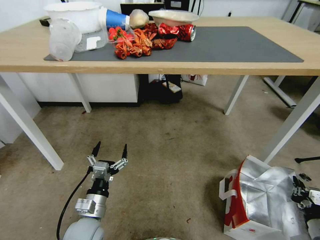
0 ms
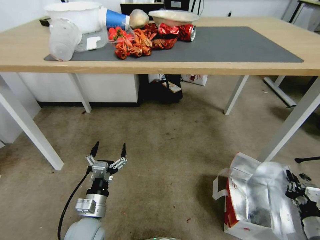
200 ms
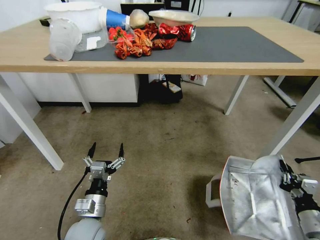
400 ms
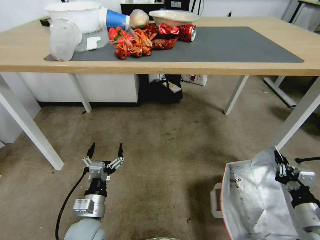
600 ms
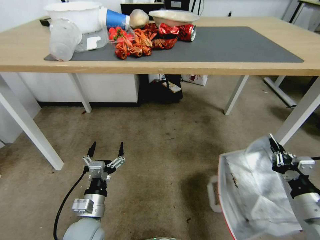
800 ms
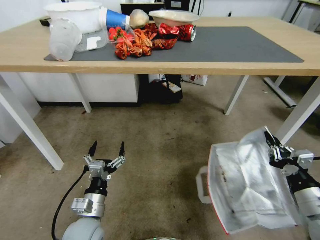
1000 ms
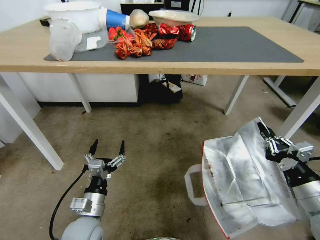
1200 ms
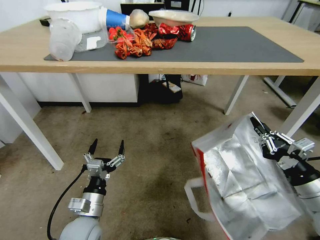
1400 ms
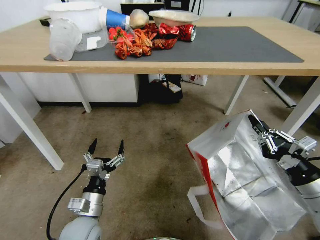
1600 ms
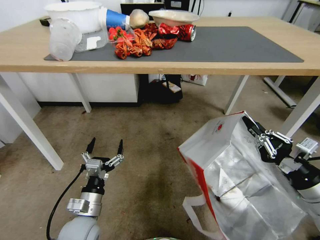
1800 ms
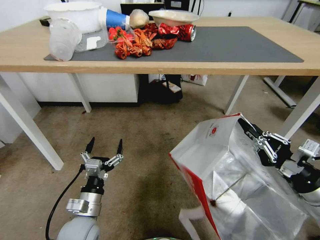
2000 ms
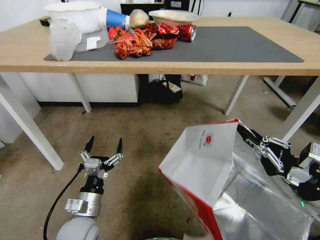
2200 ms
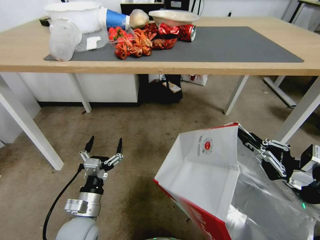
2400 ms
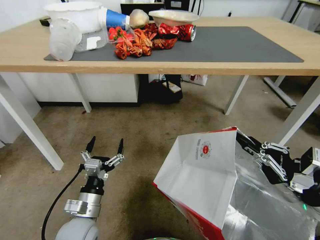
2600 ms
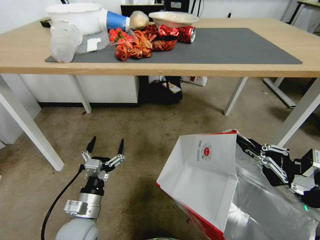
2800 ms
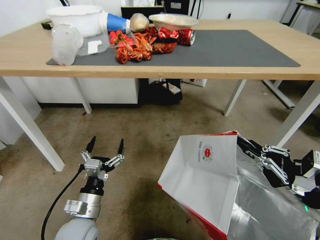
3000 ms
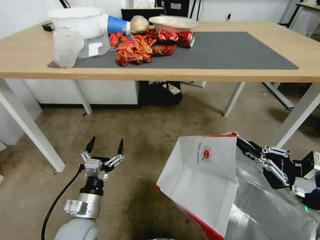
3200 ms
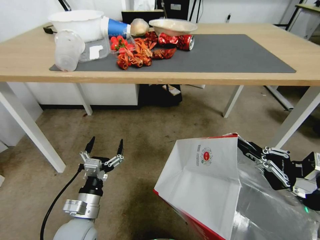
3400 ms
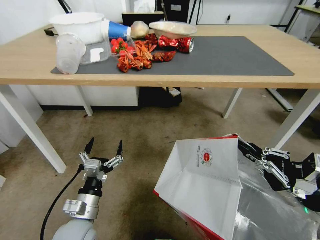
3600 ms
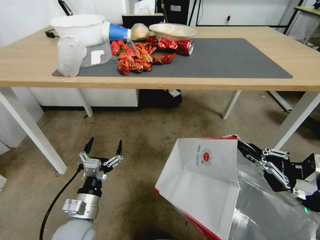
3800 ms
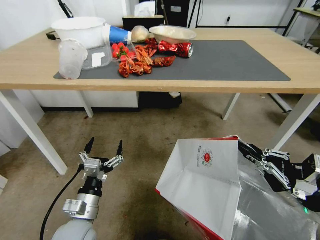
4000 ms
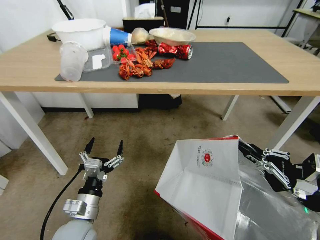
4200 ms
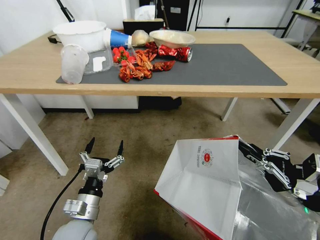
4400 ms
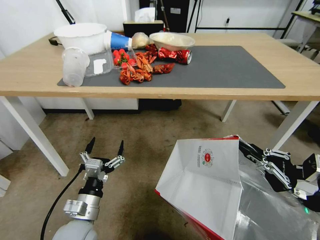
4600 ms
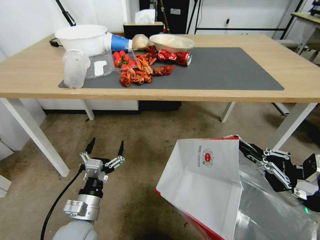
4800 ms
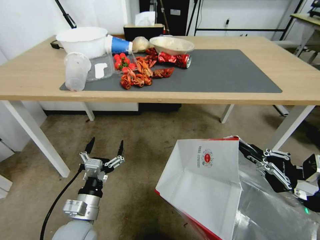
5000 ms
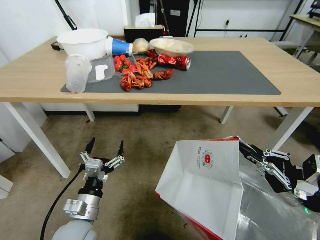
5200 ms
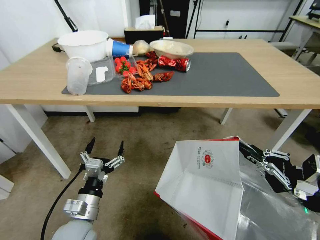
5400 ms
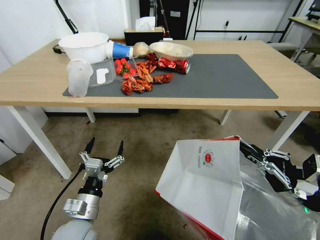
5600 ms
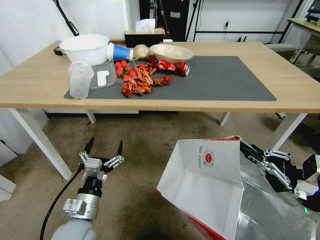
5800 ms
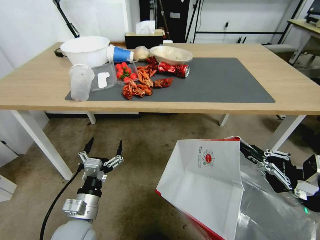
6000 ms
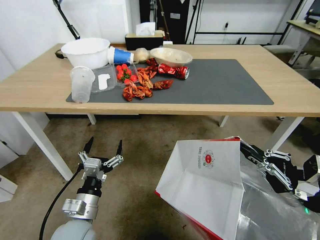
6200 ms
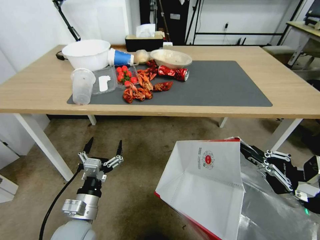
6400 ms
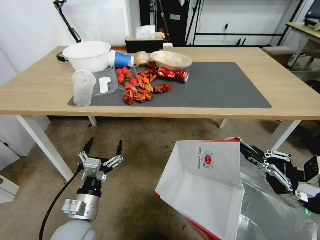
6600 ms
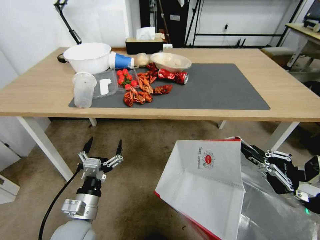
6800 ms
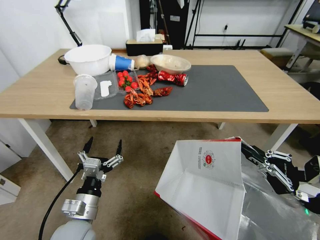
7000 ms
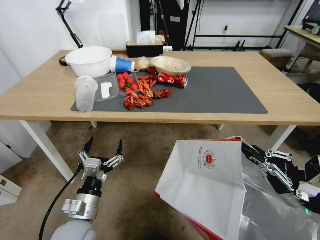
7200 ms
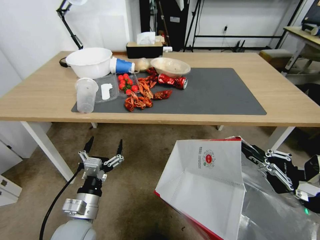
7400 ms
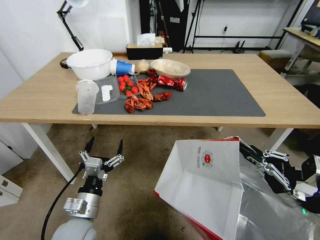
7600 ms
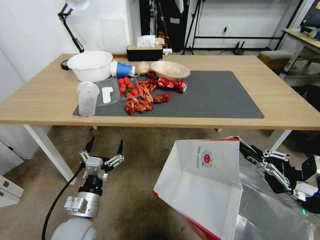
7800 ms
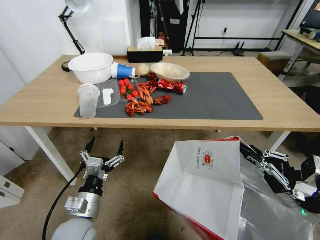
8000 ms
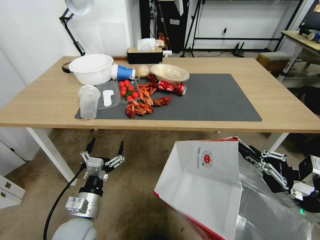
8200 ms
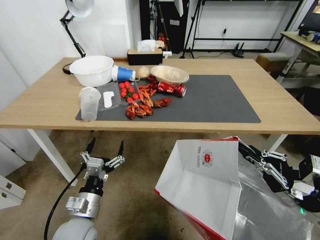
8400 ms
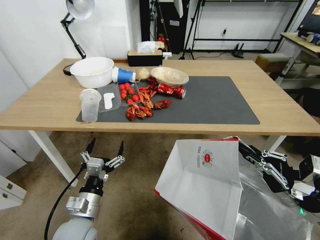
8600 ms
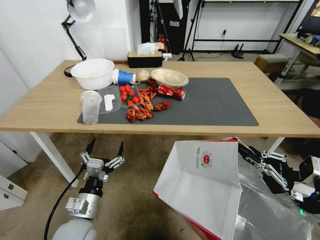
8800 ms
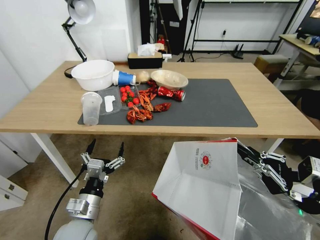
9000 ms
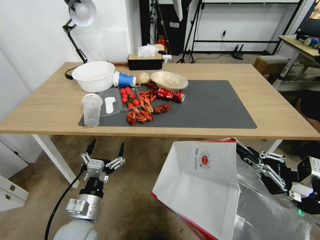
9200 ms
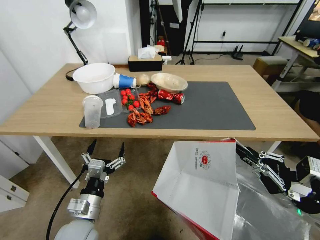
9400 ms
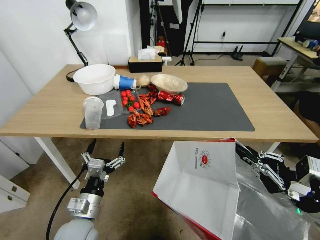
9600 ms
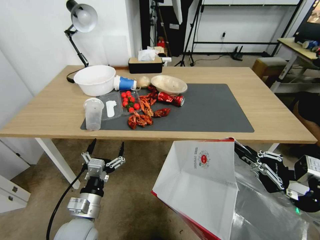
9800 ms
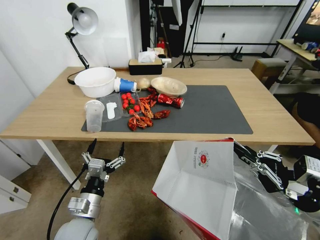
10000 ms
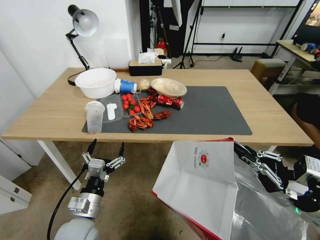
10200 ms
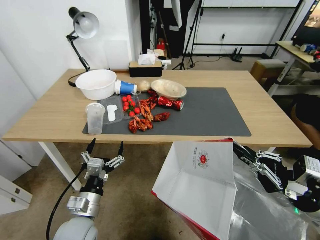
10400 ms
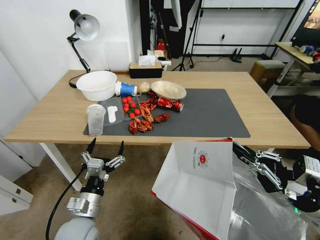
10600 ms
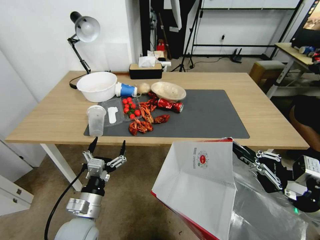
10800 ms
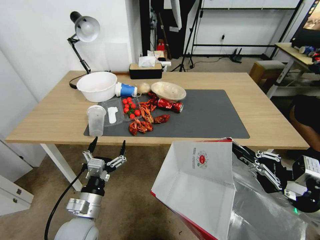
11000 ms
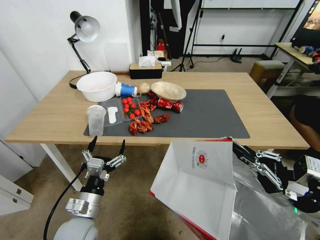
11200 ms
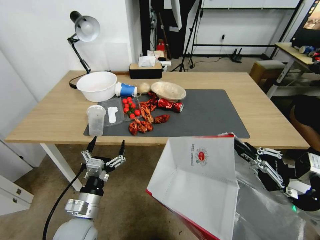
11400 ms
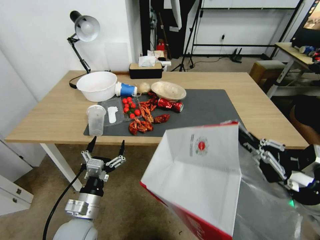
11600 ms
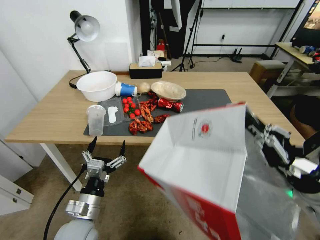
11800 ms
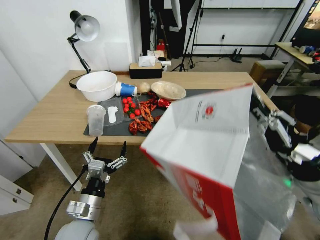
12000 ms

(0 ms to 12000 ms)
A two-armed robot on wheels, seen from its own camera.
Task of the whole recording: Pick up the food delivery bag from the floor and place it on the table.
0 ms - 1600 ms: The right gripper shifts some 25 cm upward and to the left.
10400 ms - 12000 ms: The right gripper is displaced upward by some 5 cm.

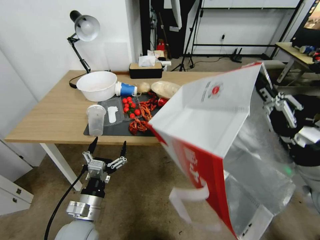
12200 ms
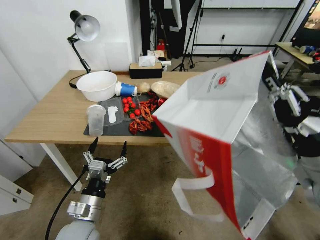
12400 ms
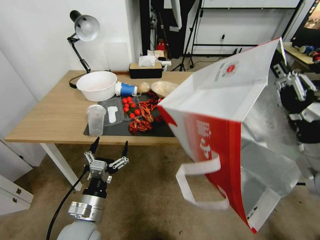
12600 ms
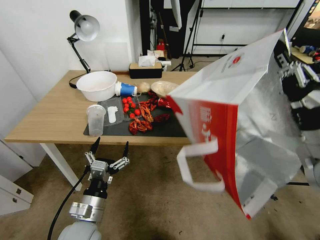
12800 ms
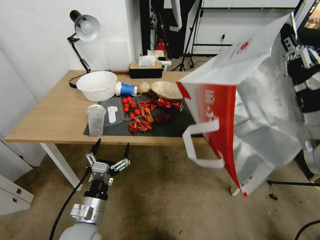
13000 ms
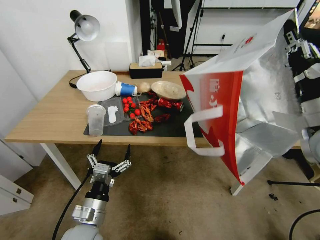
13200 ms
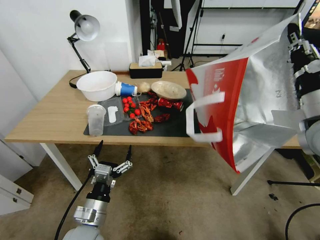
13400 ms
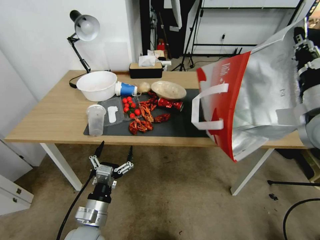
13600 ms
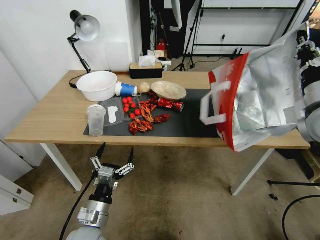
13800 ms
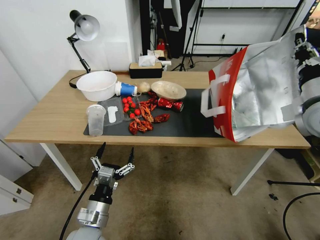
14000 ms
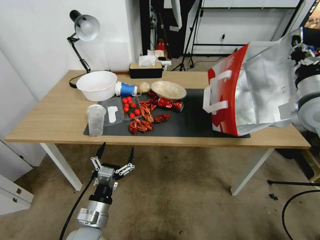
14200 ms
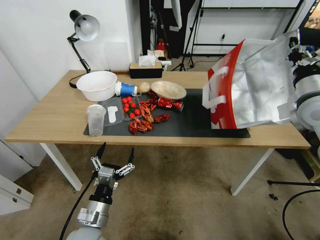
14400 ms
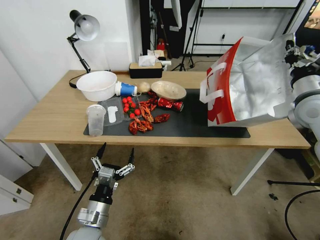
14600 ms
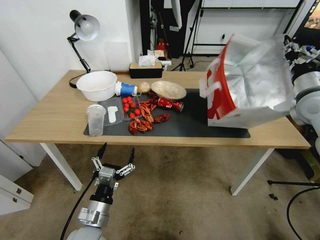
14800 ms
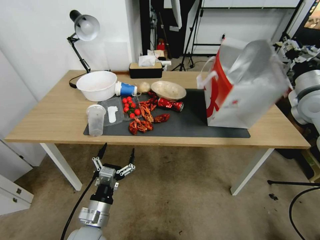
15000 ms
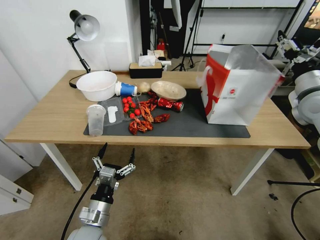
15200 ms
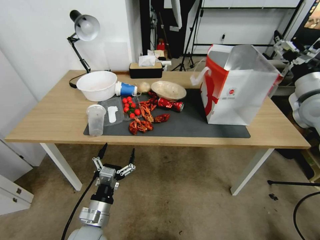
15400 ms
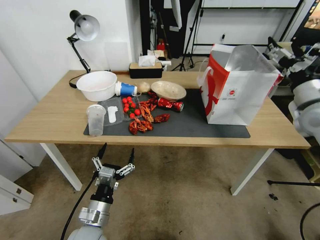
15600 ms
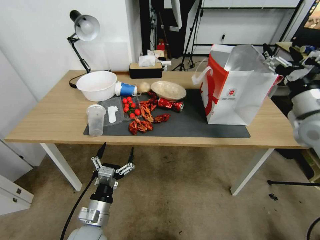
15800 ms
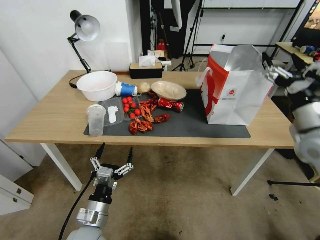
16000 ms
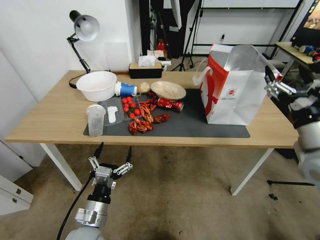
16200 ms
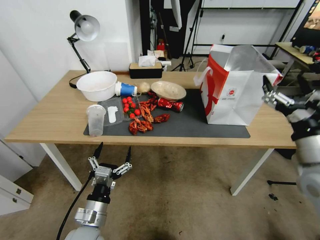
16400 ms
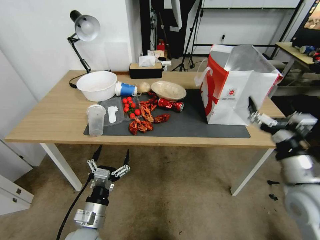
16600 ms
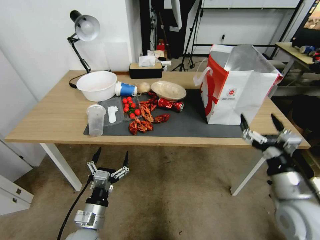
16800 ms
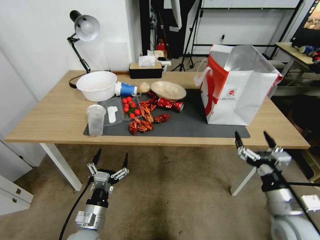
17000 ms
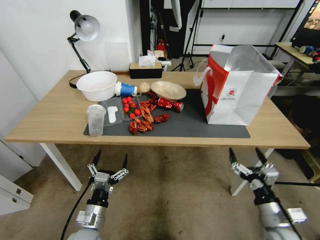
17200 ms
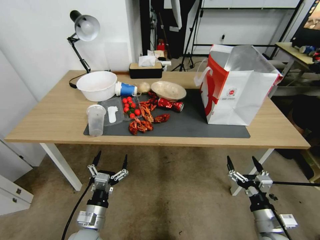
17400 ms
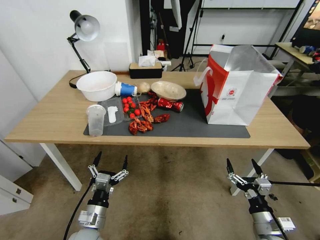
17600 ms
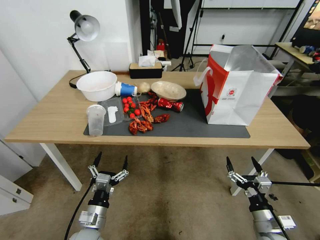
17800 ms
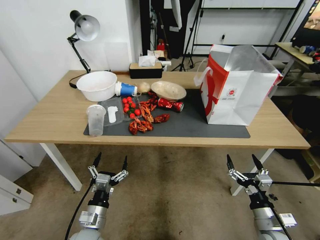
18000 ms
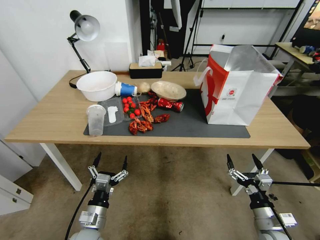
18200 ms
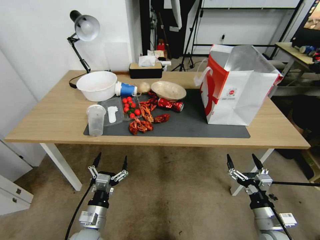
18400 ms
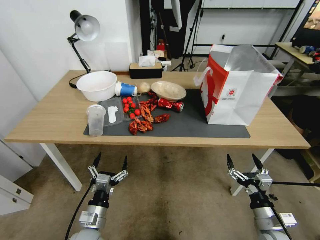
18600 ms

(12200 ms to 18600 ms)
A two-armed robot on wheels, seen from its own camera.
Task of the whole recording: Pick up the food delivery bag from the floor and place it on the table.
12200 ms - 13800 ms: The right gripper goes some 15 cm forward and upward.
13800 ms - 15400 ms: The right gripper shifts roughly 5 cm forward, and opens up.
15400 ms - 17000 ms: The right gripper travels backward and downward by roughly 30 cm.
17000 ms - 18600 ms: The right gripper is displaced downward by about 10 cm.

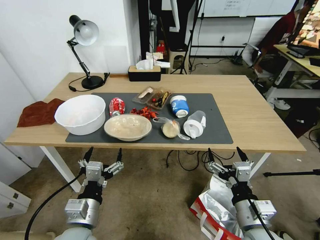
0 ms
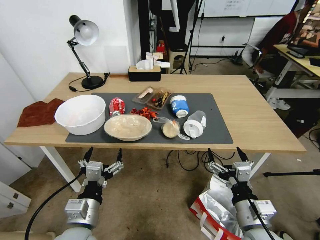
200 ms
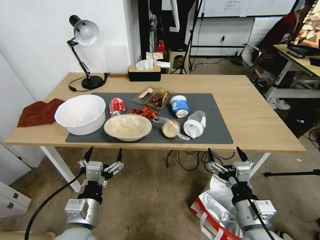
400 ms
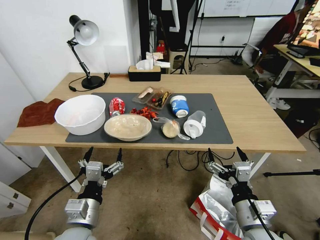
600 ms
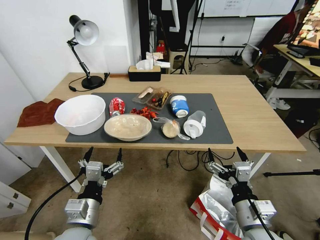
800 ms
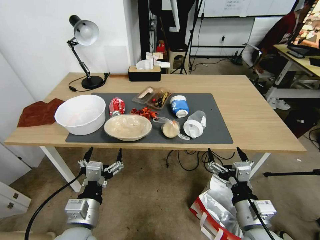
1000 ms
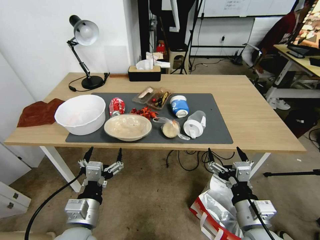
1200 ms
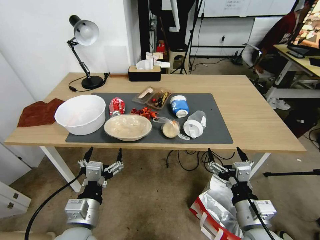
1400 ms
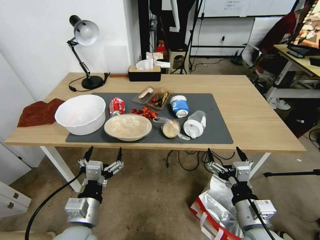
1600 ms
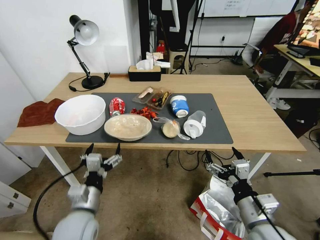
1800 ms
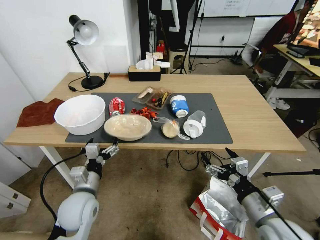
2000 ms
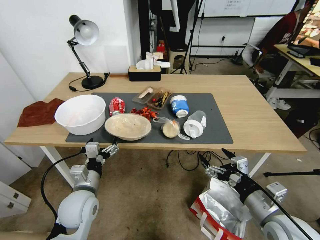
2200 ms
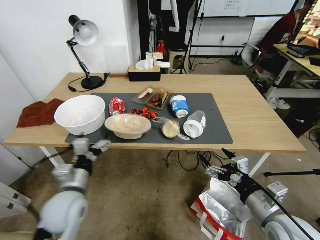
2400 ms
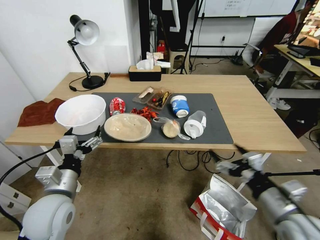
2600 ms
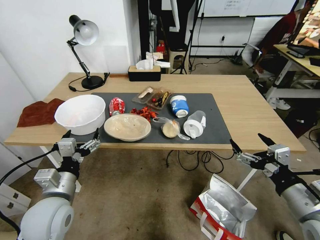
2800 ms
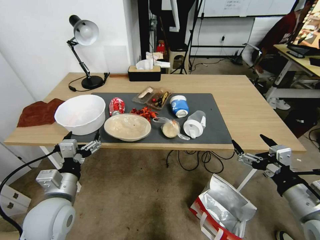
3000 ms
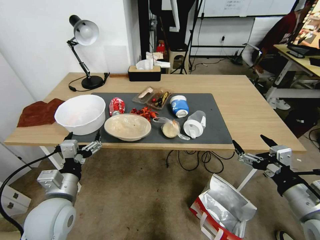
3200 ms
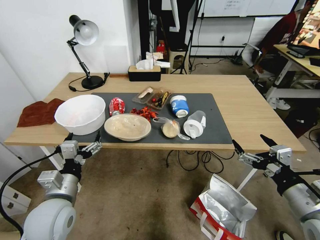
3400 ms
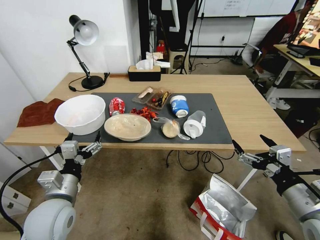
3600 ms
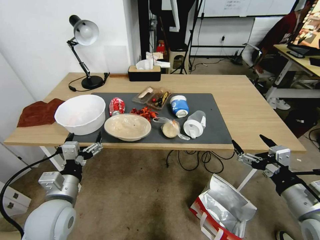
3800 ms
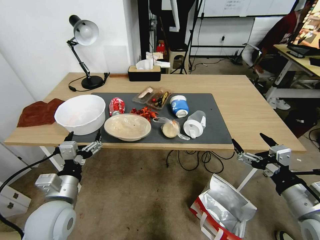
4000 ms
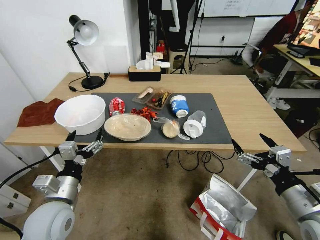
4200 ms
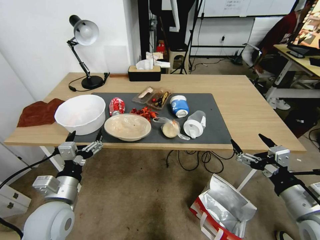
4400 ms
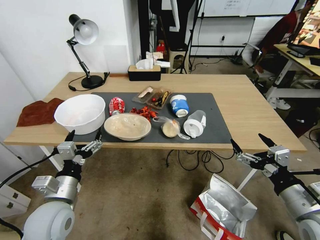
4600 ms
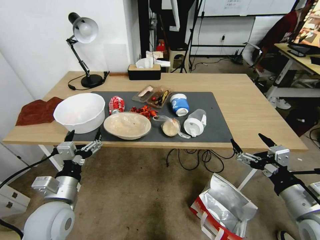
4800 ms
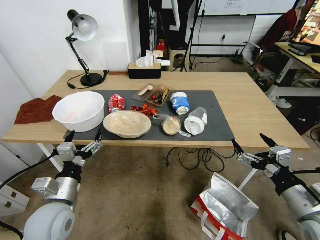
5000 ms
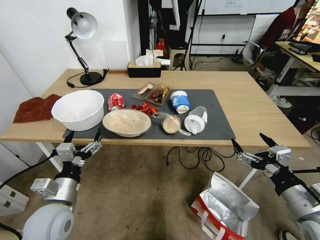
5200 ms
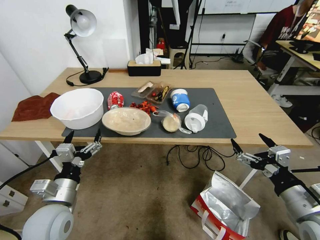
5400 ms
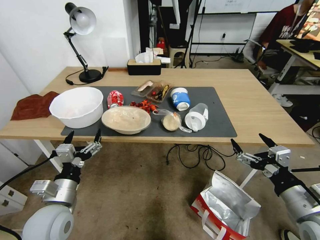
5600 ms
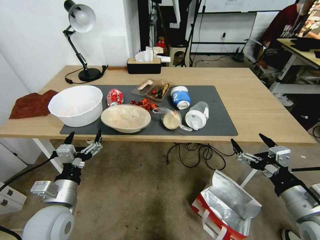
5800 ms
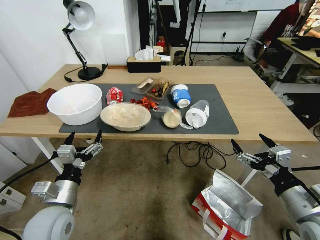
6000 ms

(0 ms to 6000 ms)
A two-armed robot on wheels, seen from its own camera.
Task of the whole recording: Pick up the food delivery bag from the floor and place it on the table.
1600 ms - 3000 ms: The right gripper travels to the right and upward by roughly 15 cm. The left gripper shifts about 10 cm to the left and forward.
3000 ms - 4400 ms: The grippers move only a little.
